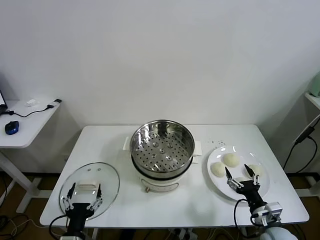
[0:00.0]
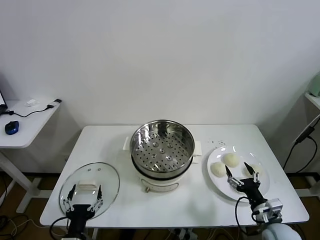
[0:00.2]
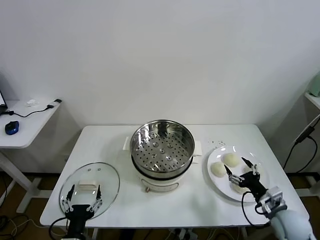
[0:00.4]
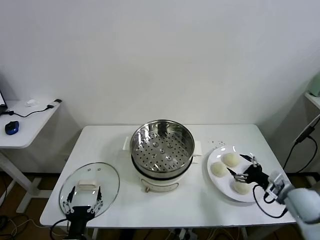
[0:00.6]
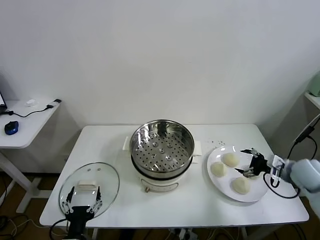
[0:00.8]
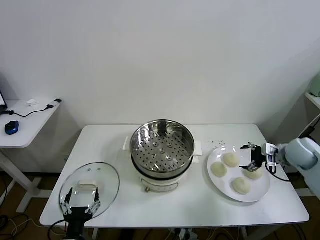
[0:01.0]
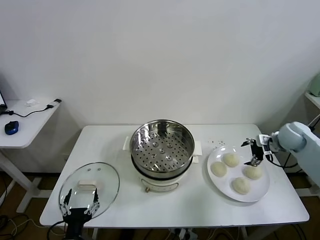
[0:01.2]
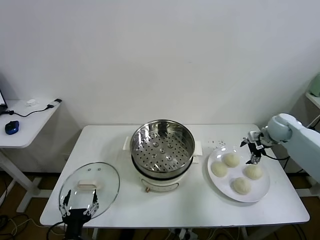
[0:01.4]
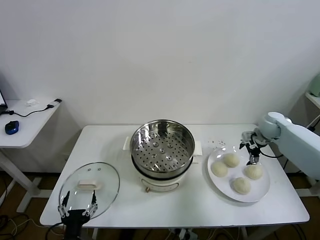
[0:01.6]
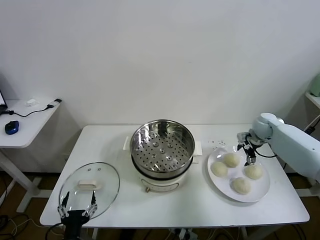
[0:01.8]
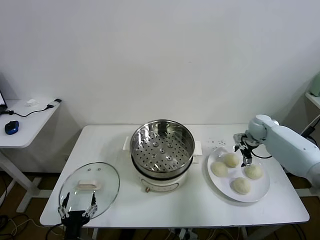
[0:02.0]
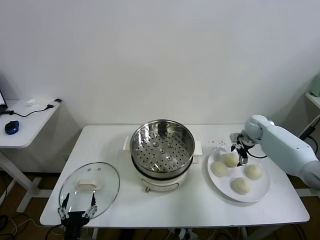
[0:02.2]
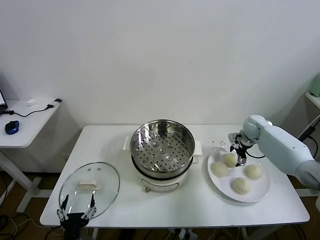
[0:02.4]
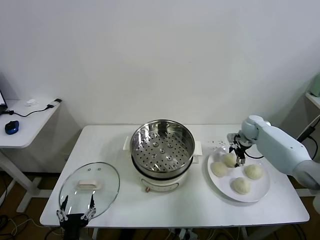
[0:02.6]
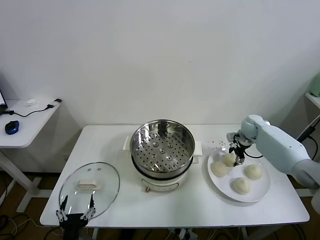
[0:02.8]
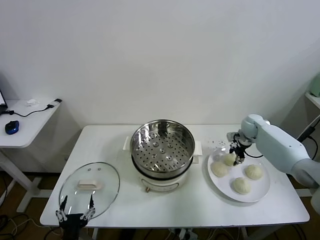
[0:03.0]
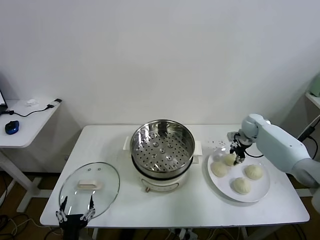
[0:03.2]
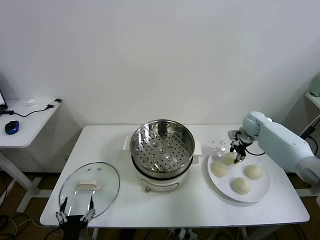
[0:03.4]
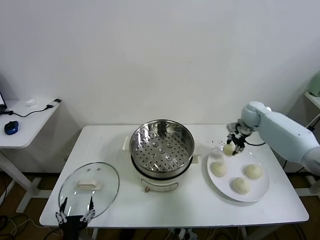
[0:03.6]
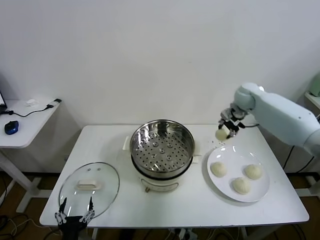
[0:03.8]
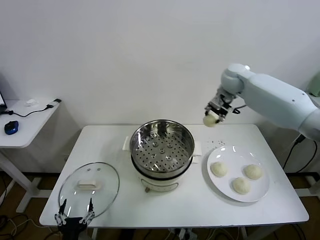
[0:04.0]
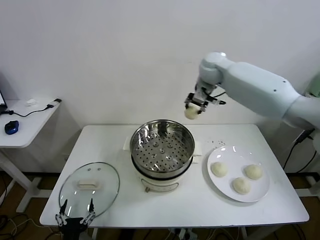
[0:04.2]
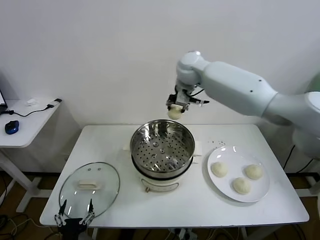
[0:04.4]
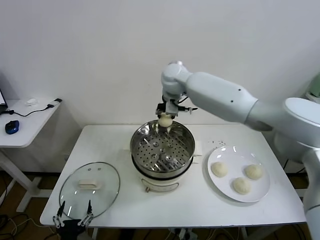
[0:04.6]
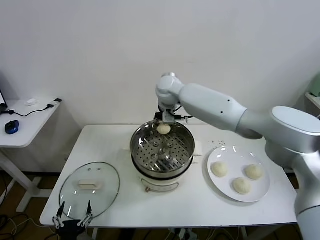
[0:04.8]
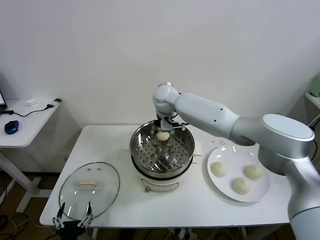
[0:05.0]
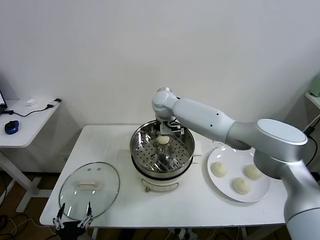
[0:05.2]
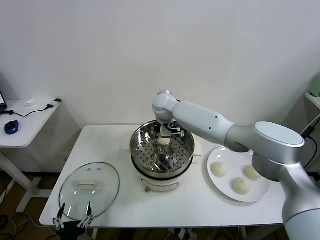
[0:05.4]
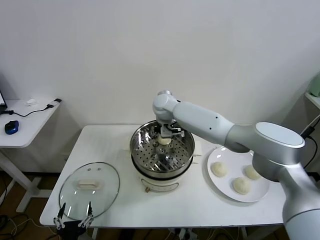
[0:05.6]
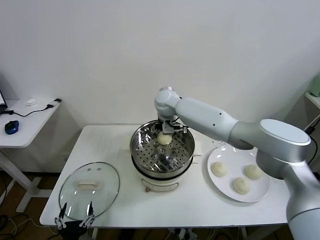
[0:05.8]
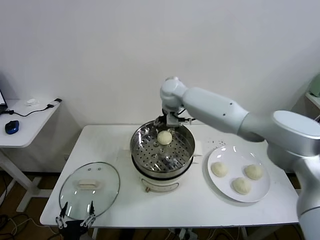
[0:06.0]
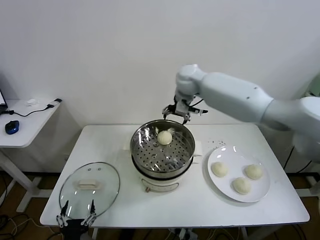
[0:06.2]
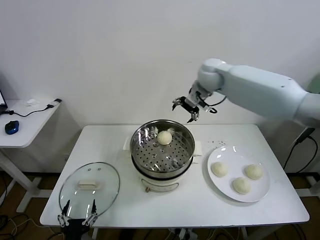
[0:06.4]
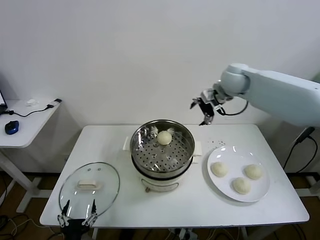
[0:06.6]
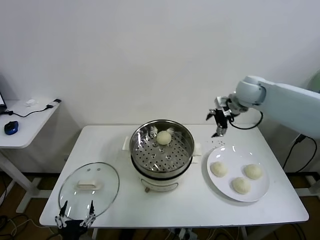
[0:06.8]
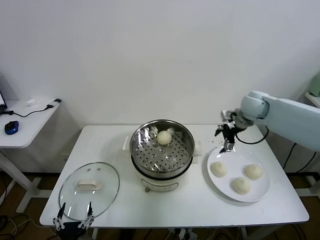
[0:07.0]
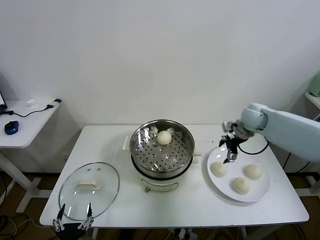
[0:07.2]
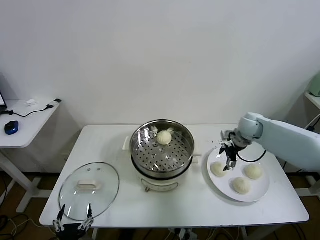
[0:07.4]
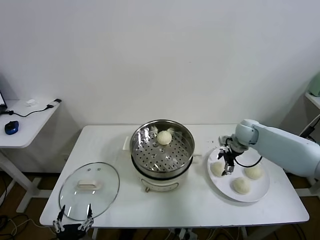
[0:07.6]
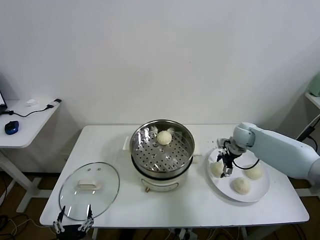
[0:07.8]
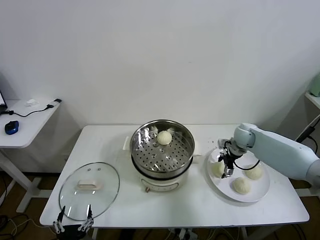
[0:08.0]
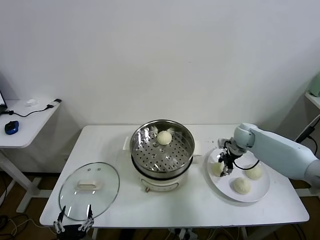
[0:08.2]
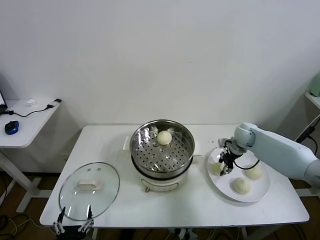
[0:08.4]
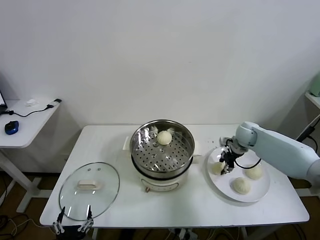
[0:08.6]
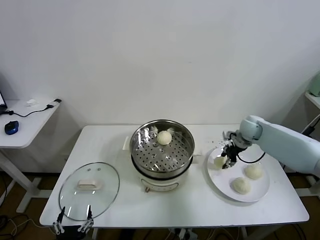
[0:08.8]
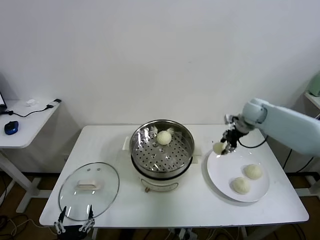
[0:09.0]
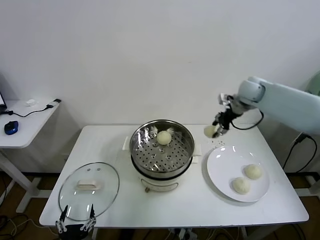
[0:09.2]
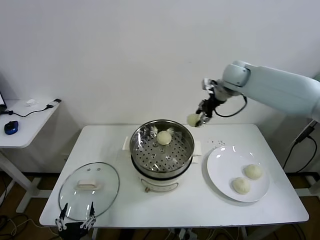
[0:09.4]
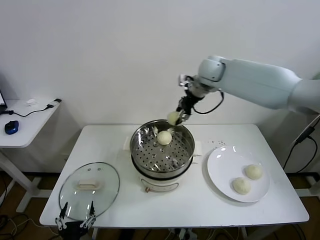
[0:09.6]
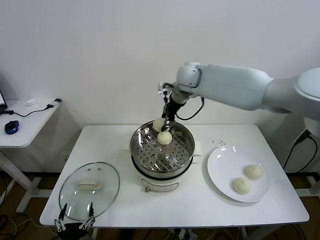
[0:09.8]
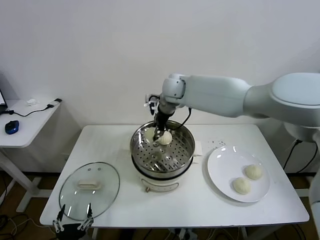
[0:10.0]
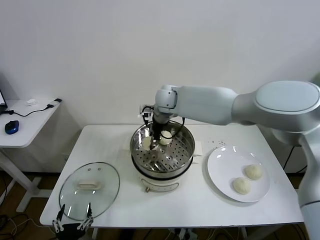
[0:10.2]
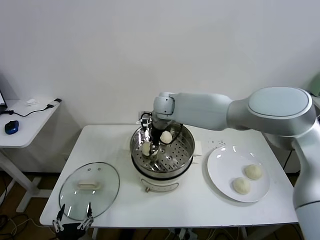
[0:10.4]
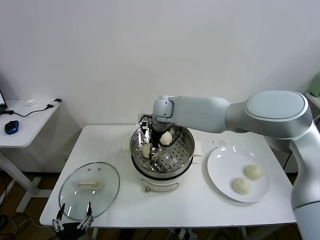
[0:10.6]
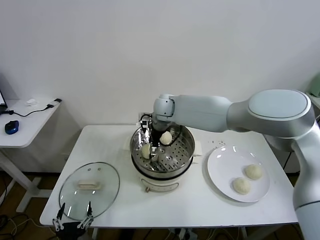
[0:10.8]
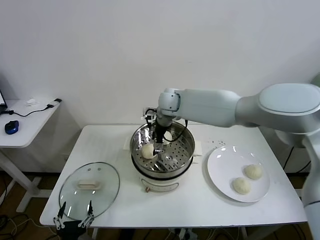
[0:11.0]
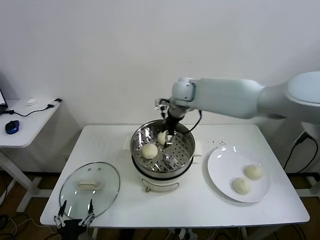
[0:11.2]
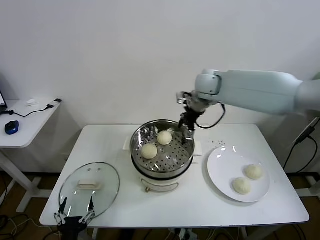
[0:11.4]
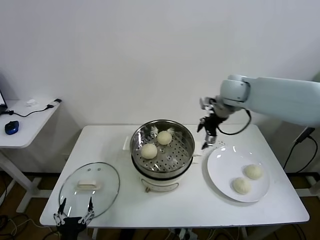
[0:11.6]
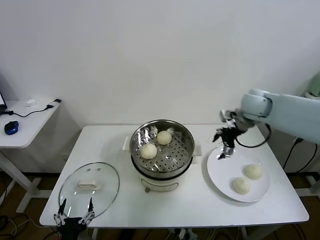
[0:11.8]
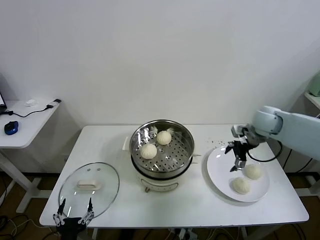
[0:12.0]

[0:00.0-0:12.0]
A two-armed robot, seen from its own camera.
Task of the whole recording: take steamed baozi put them in steamer.
Step, 0:00.0 to 0:02.8: Grasp the baozi in the plate with right gripper.
Step, 0:03.2 to 0:05.8: Place the baozi on the steamer with right gripper.
Step, 0:06.0 to 0:08.2: Grasp the baozi in the plate with right gripper.
Step, 0:08.4 to 0:11.0: Place the baozi on the steamer with right gripper.
0:01.6 to 0:03.0: The right gripper ends up approximately 5 cm from where it was, and closes its fingers.
0:03.0 to 0:04.4: The right gripper heads to the left and upward, covering approximately 40 cm.
0:04.4 to 0:06.0: The right gripper travels downward by roughly 5 cm, and opens its fingers.
0:06.0 to 0:07.6: The right gripper heads to the right and downward, covering approximately 35 cm.
0:07.6 to 0:09.0: The right gripper goes about 10 cm upward, and closes.
0:09.0 to 0:10.4: The right gripper is displaced to the left by approximately 35 cm.
0:10.4 to 0:12.0: The right gripper shifts some 35 cm to the right, and opens.

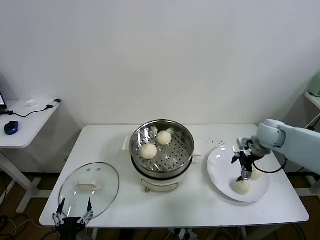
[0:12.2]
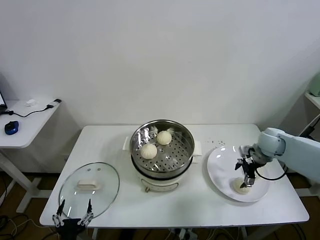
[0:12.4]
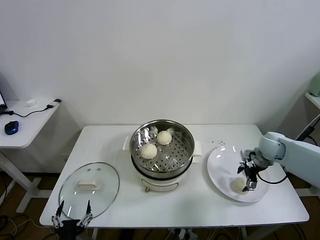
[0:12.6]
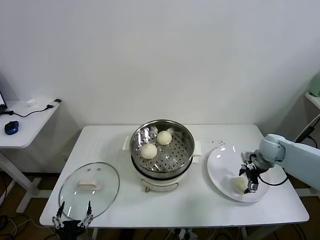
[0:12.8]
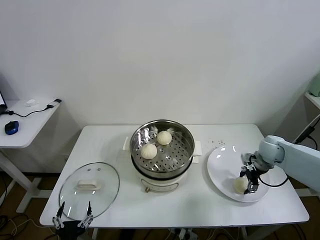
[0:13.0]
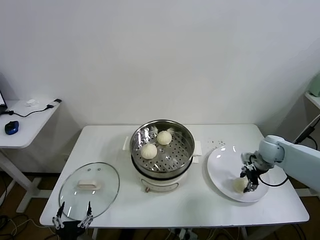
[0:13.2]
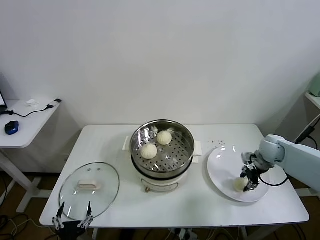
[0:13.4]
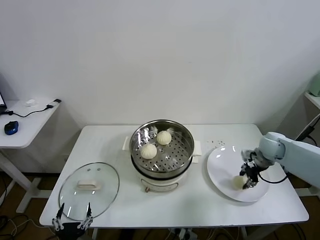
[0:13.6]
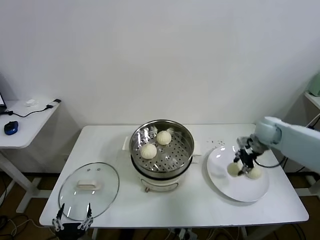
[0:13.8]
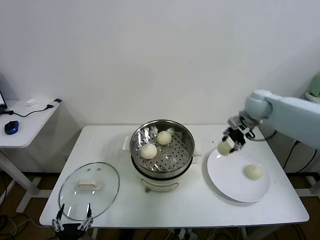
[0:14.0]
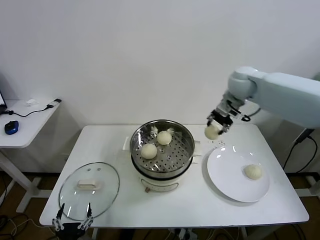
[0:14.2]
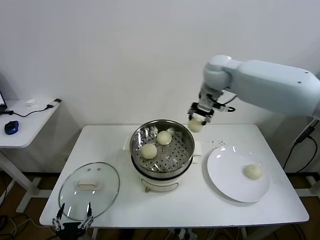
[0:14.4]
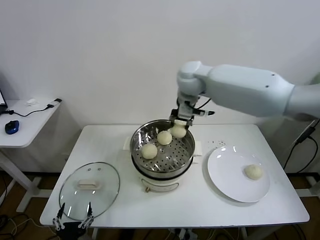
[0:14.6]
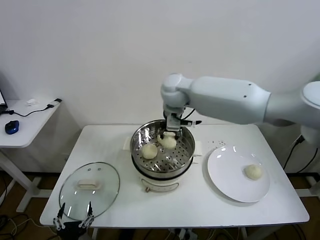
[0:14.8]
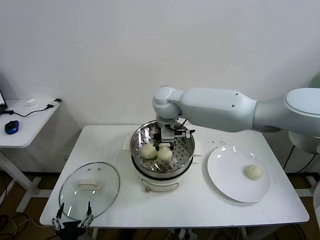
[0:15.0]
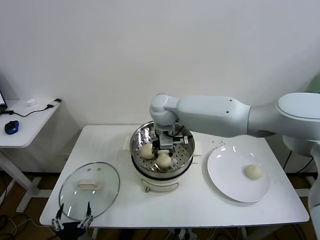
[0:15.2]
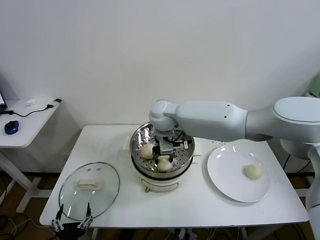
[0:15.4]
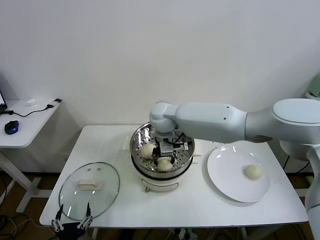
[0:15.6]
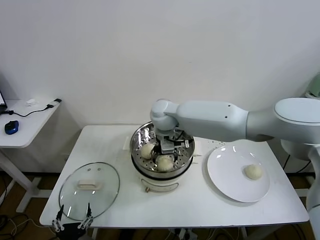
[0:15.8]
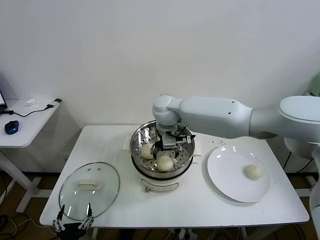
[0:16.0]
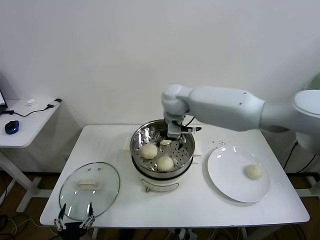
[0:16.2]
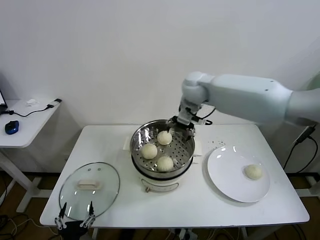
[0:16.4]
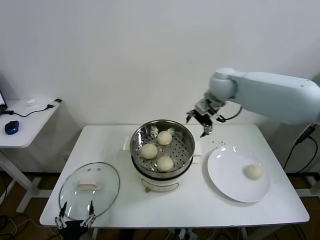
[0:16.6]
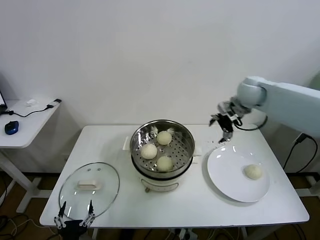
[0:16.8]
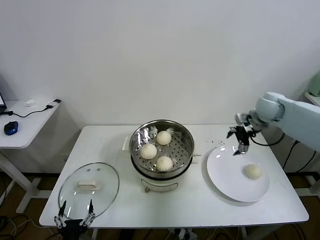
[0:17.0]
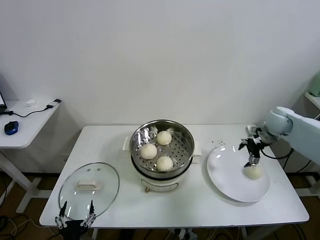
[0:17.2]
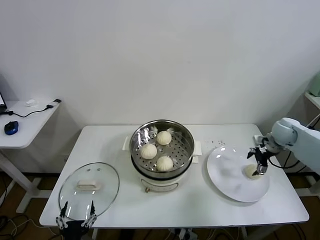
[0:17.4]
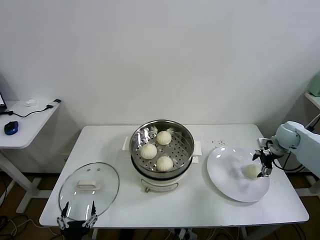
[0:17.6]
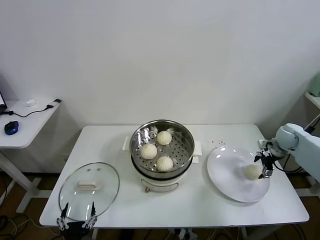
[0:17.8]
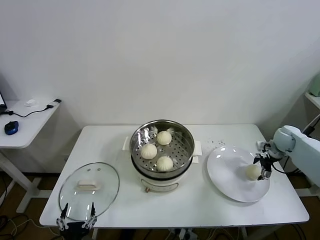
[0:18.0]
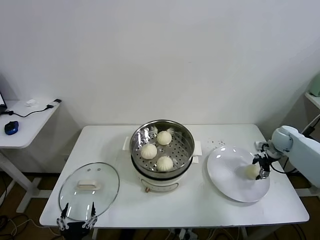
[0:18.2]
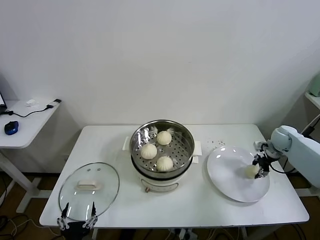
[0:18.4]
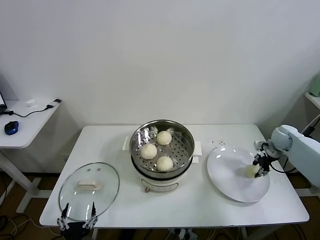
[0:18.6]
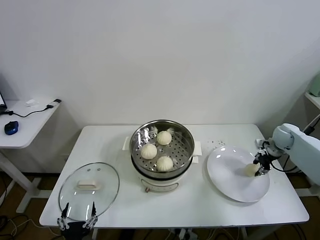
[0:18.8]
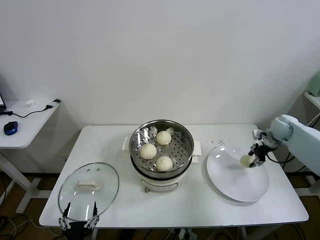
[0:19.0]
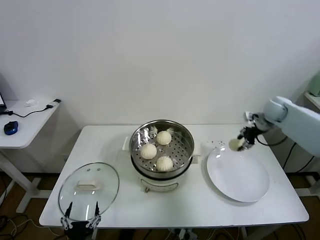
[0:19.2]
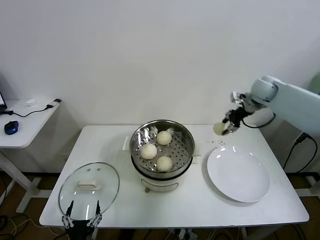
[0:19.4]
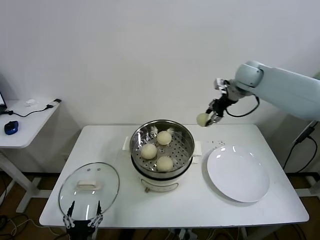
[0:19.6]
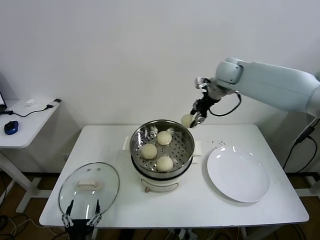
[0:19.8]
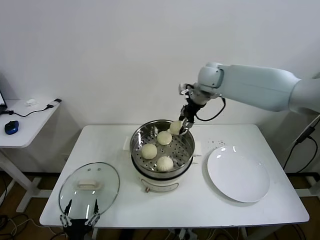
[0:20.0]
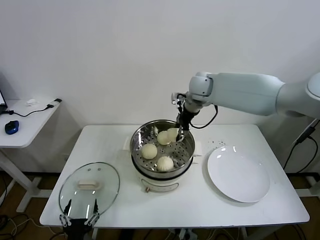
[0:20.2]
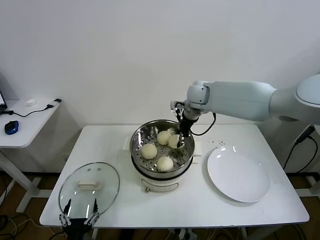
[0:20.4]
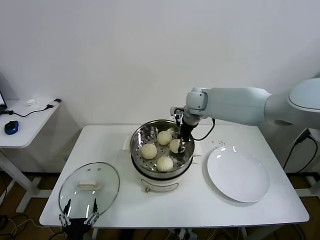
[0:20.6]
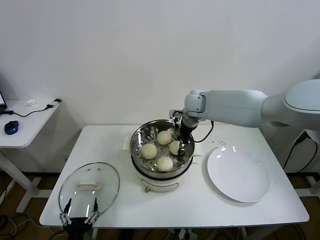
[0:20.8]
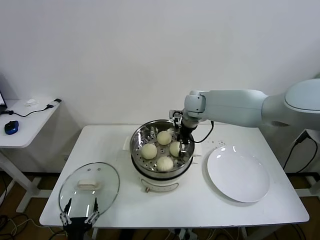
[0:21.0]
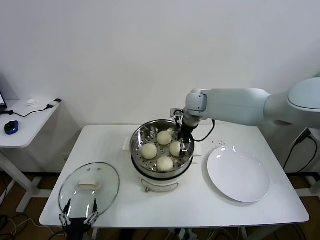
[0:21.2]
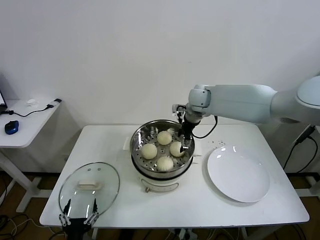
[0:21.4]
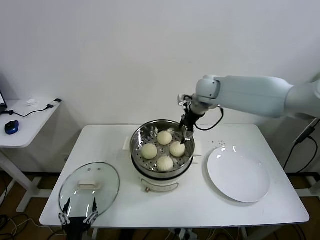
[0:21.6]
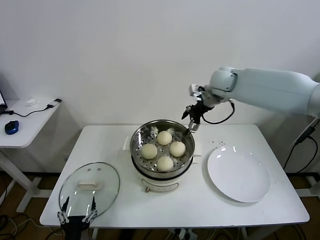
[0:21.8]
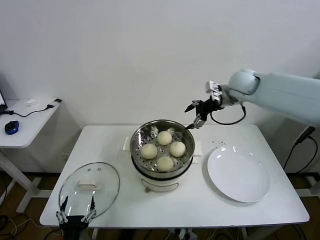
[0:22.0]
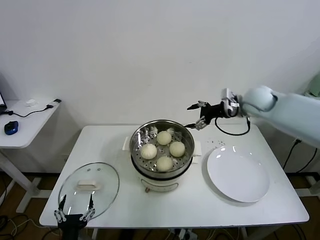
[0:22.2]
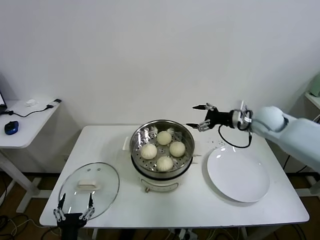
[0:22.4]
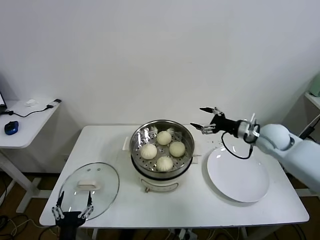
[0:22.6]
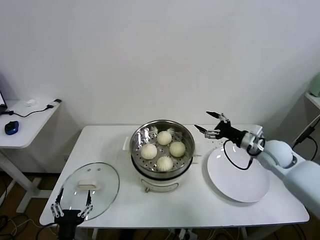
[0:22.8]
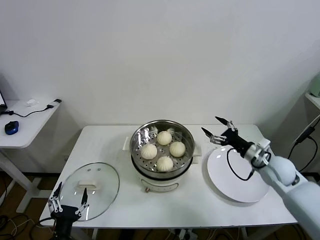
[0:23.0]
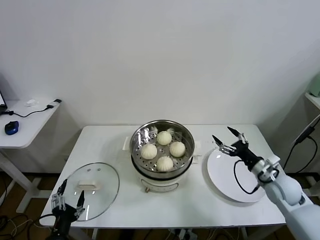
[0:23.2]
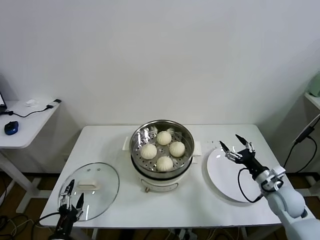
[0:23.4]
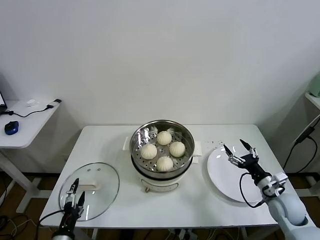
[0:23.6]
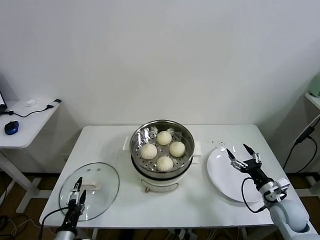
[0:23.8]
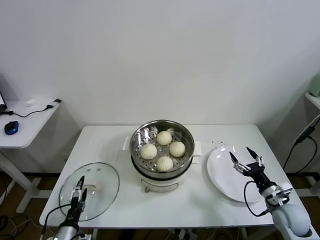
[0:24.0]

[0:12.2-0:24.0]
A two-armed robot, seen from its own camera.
Task of the whole recording: take steamed baozi put them in steamer.
Step, 0:13.4 to 0:15.8: Place the baozi on the steamer with right gripper.
Step, 0:16.0 to 0:18.4: Grasp the baozi in the plate with right gripper.
Step, 0:18.6 to 0:21.4: Place the baozi on the steamer with right gripper.
0:12.2 to 0:13.6: The right gripper closes its fingers.
0:13.6 to 0:15.2: The right gripper goes roughly 40 cm to the left.
0:15.2 to 0:16.6: The right gripper shifts some 20 cm to the right, and opens.
0:16.6 to 0:18.2: The right gripper is displaced to the right and downward by about 35 cm.
0:18.2 to 0:19.6: The right gripper moves upward and to the left, some 30 cm, and closes up.
0:19.6 to 0:21.0: The right gripper travels to the left and downward by roughly 20 cm, and opens its fingers.
0:21.0 to 0:22.6: The right gripper moves to the right and backward, about 25 cm.
0:22.6 to 0:24.0: The right gripper shifts roughly 25 cm backward and downward. The left gripper shifts about 10 cm downward, to the left and forward.